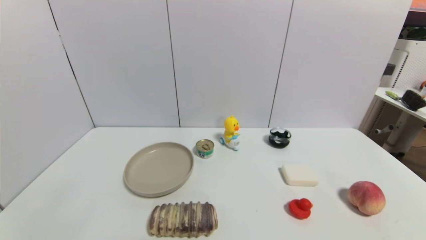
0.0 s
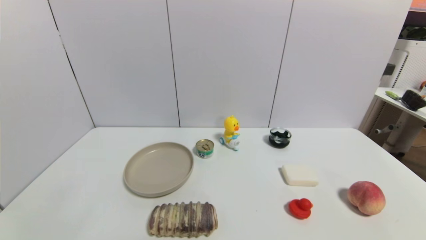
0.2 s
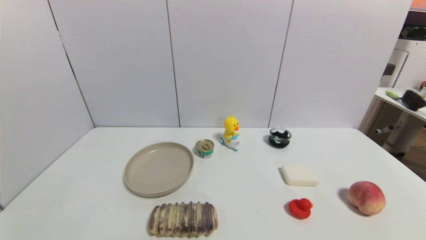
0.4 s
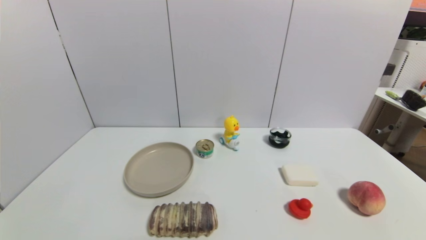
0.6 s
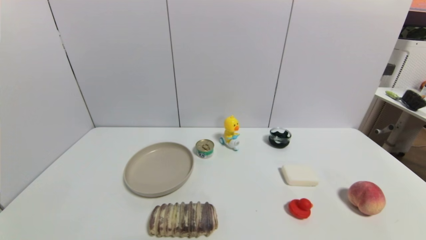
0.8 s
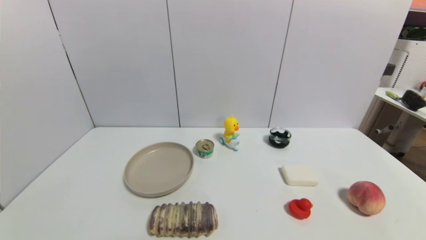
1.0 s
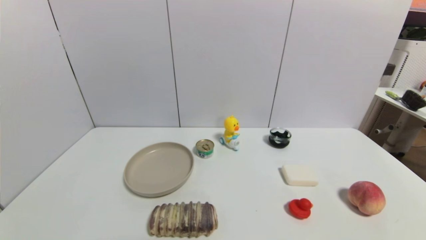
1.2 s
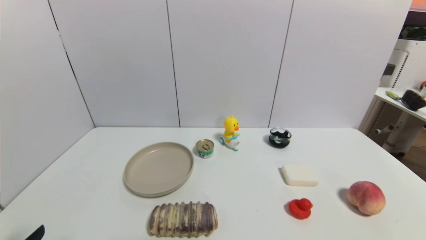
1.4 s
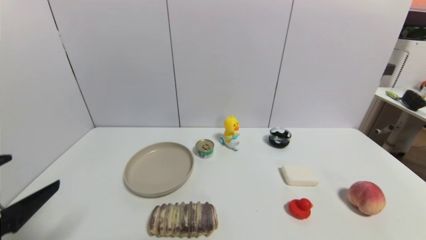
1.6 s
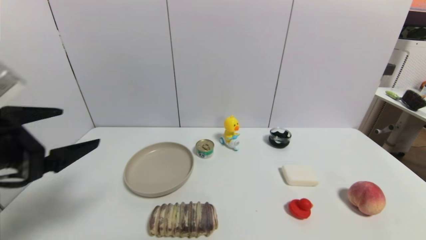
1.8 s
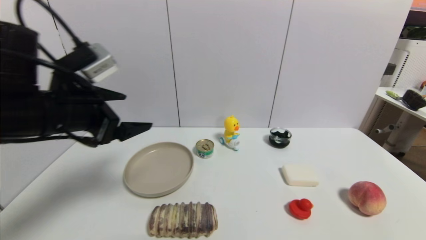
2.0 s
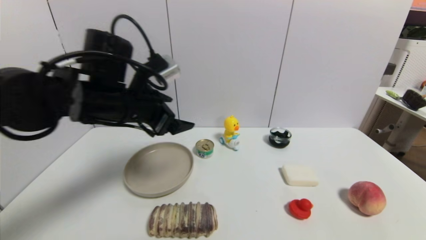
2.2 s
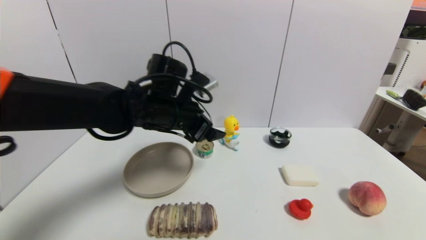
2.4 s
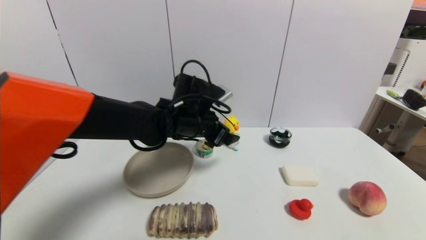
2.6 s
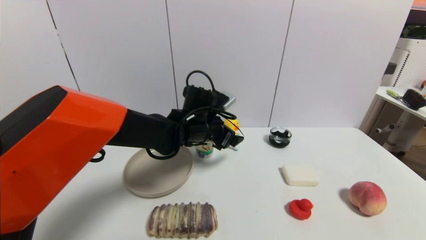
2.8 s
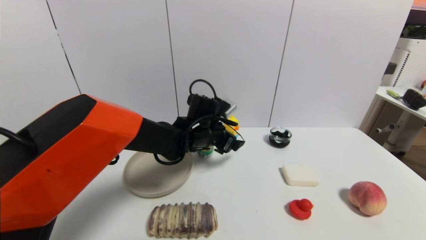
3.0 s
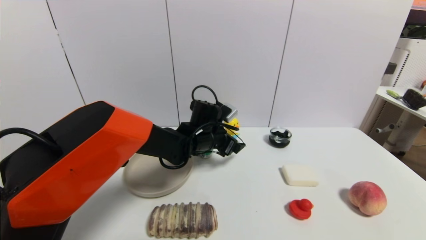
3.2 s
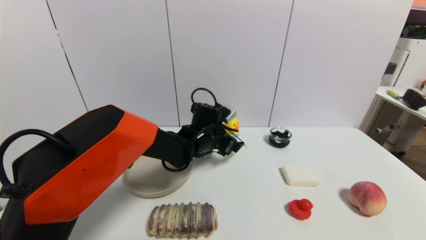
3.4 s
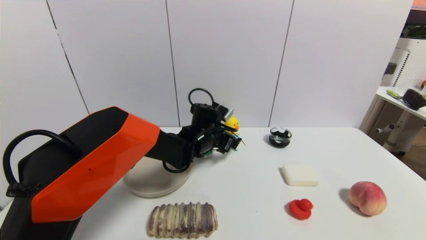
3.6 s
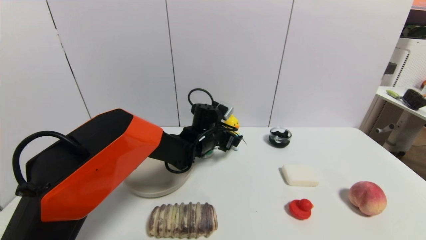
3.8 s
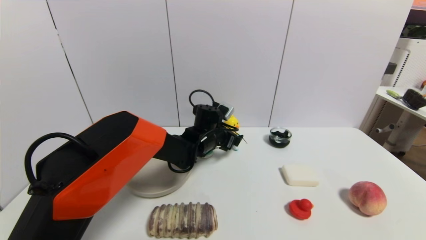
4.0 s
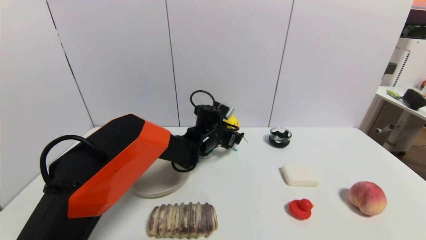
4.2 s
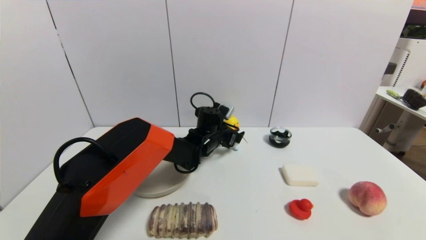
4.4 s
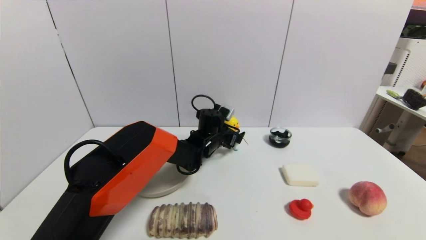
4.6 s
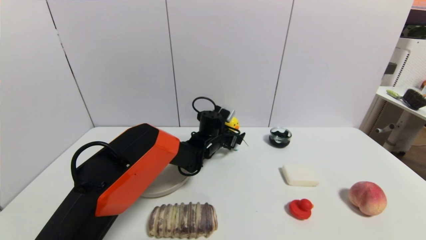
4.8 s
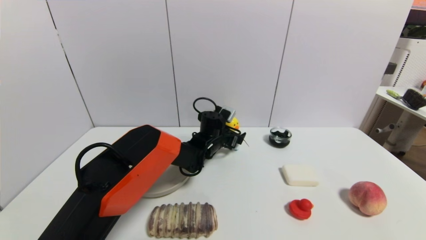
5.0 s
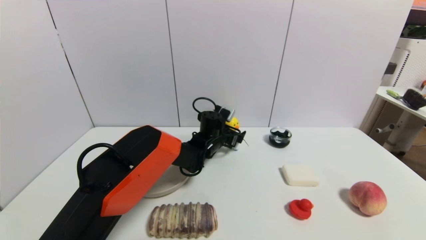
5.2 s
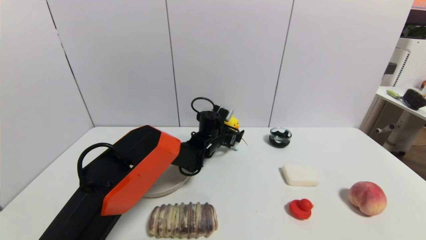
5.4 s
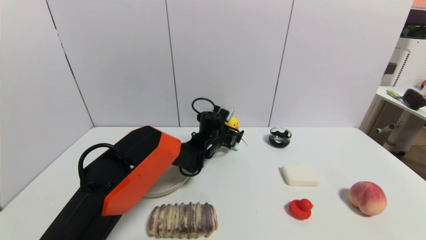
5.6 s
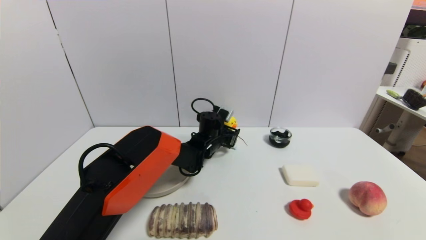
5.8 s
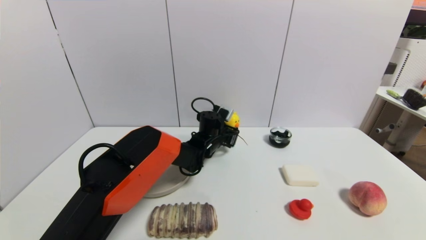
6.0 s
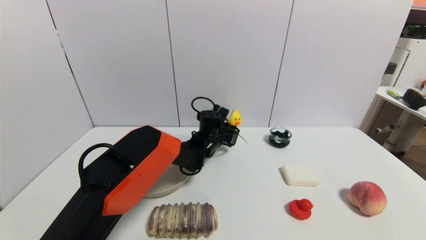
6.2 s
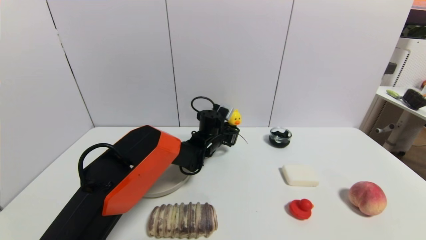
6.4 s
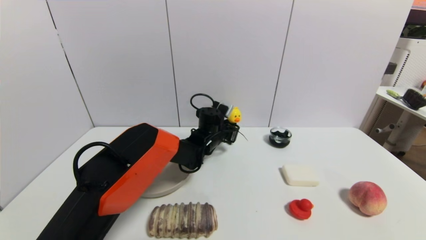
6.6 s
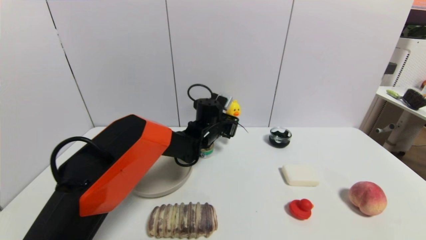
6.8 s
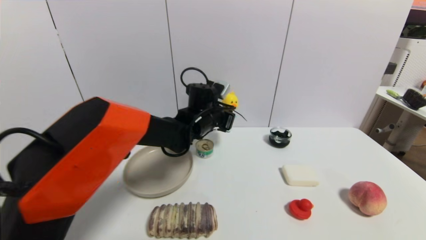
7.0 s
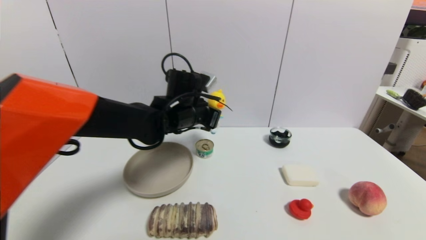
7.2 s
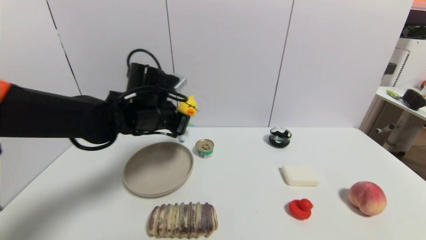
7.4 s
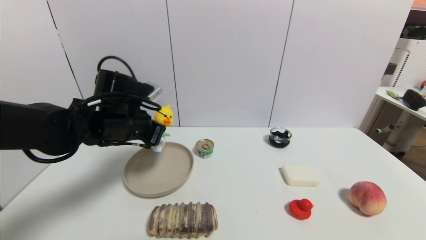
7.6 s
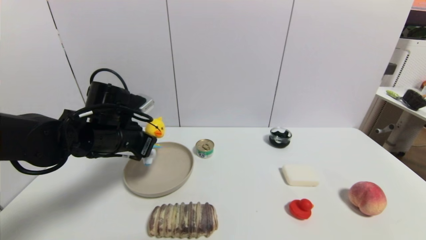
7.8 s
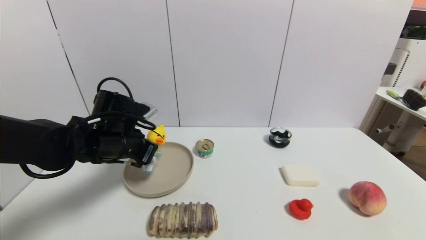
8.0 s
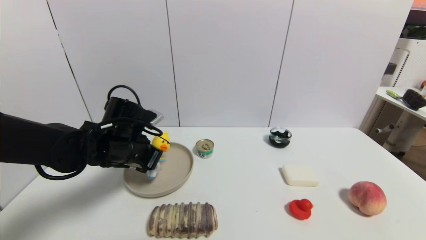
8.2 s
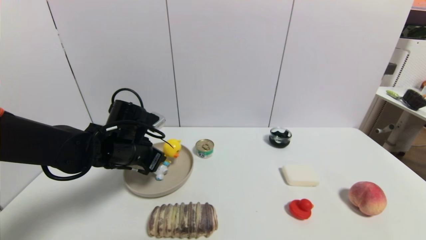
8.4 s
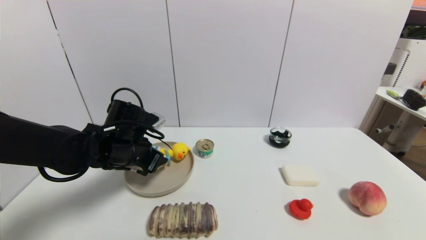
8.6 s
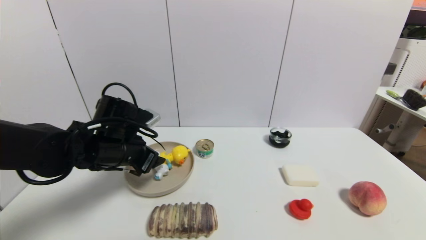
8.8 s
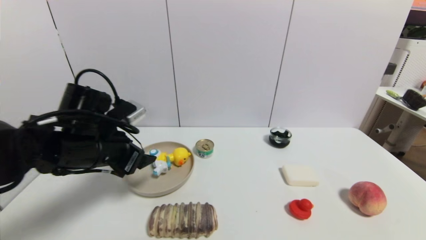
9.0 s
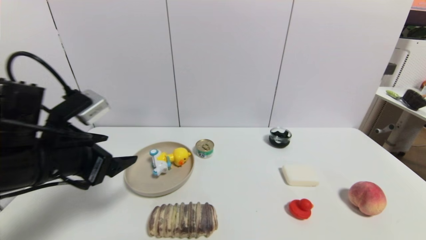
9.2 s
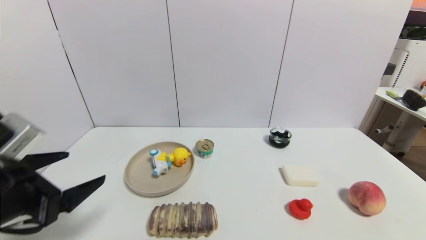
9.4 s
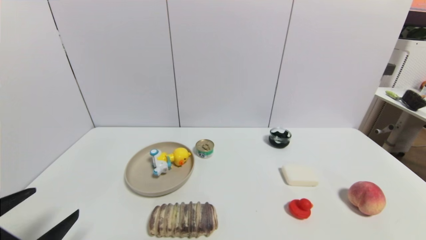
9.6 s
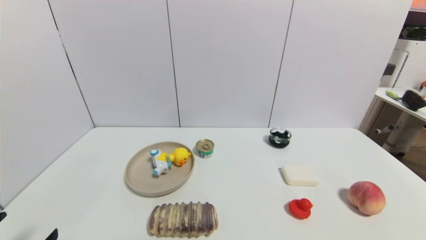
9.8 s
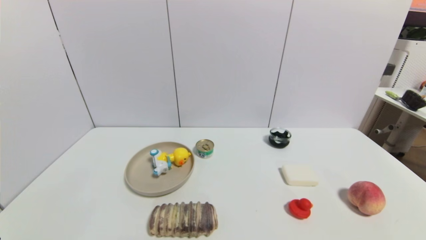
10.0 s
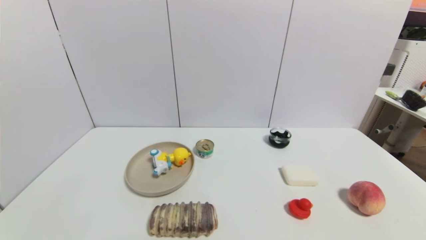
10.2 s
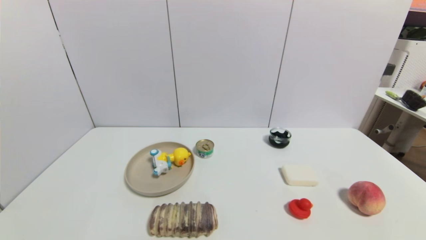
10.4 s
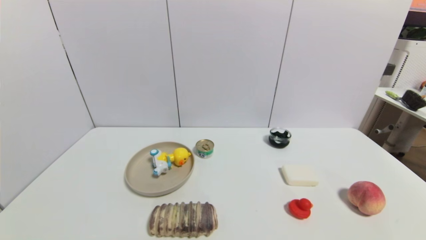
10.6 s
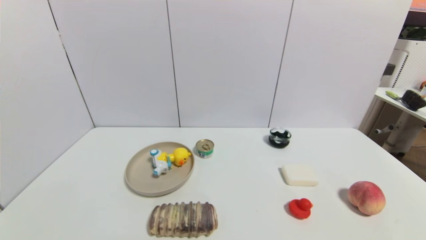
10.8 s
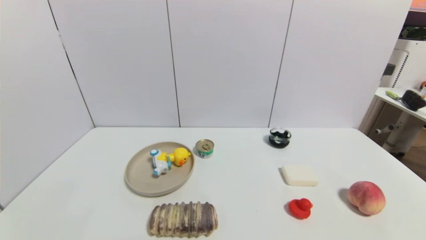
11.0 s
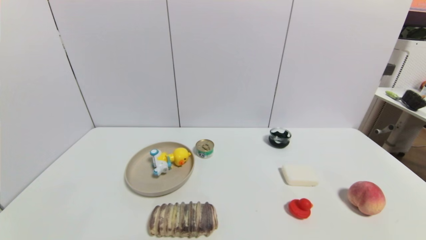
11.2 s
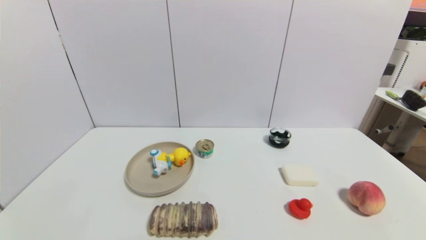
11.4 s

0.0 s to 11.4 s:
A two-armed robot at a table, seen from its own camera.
Task of the whole recording: use a gripper to pick the target object and place on the brown plate.
Step, 0.0 to 6.4 s: Grasp the duck toy with the left gripper.
Step, 6.6 to 9.0 s: Place the duck toy on the brown plate with the left gripper.
1.4 to 2.8 s: The left gripper shifts roughly 40 cm forward and to the right.
2.8 to 4.2 s: The left gripper heads downward and forward, covering roughly 10 cm.
4.2 to 5.6 s: The grippers make only small movements.
5.6 to 7.2 s: The left gripper is displaced upward, backward and to the left by roughly 15 cm, and closes its fingers.
7.2 to 8.6 s: The left gripper shifts approximately 15 cm to the left, backward and downward, and opens up.
8.6 to 10.0 s: The left gripper is displaced backward by approximately 30 cm, and opens its fingers.
